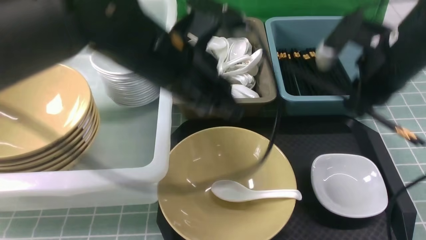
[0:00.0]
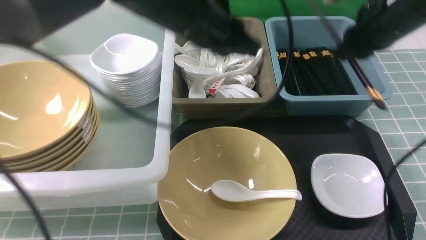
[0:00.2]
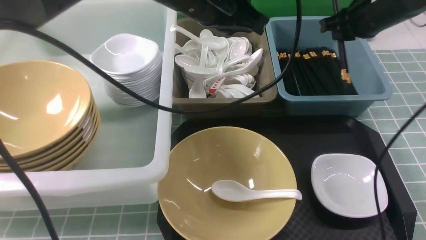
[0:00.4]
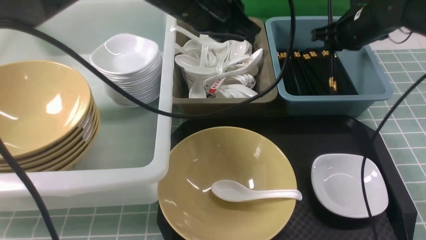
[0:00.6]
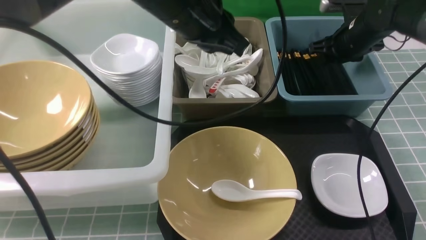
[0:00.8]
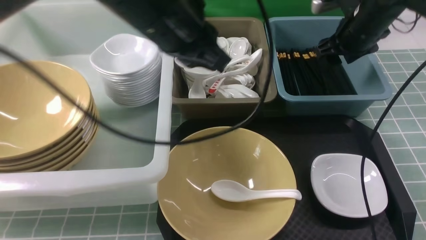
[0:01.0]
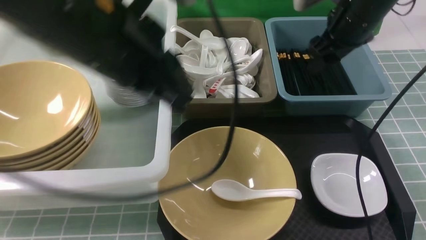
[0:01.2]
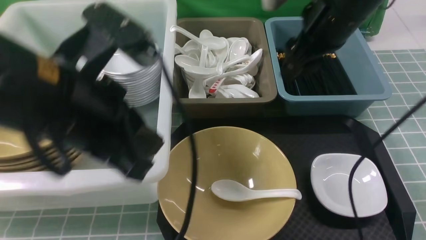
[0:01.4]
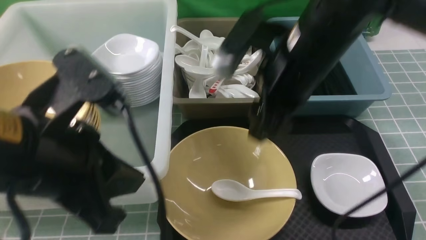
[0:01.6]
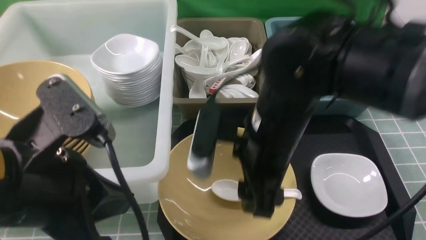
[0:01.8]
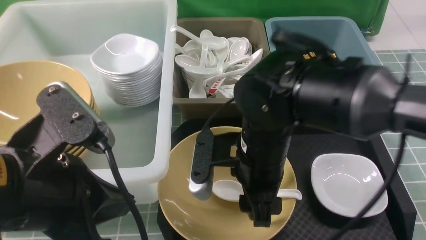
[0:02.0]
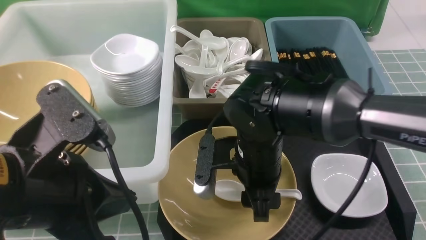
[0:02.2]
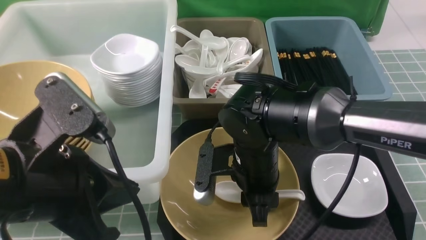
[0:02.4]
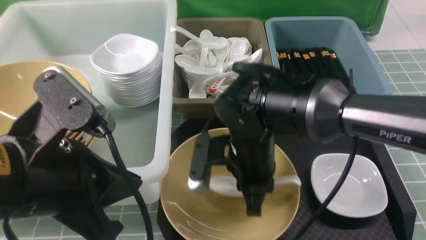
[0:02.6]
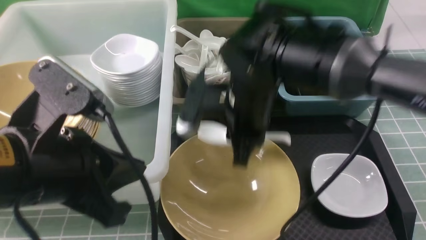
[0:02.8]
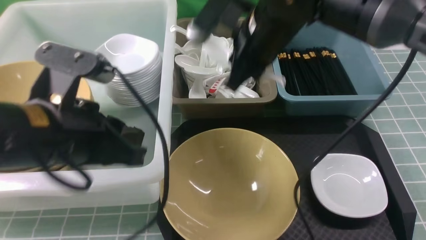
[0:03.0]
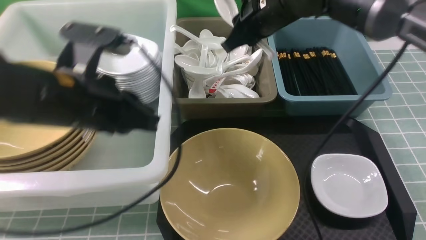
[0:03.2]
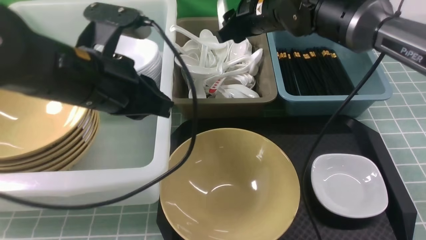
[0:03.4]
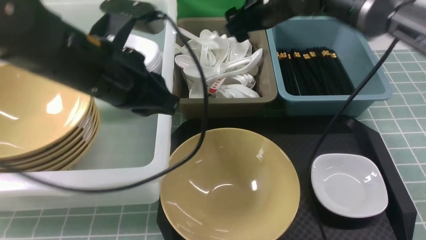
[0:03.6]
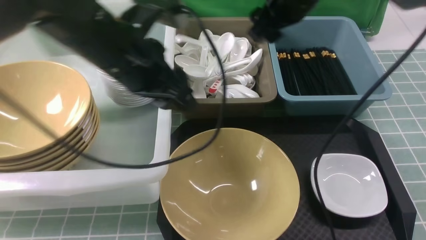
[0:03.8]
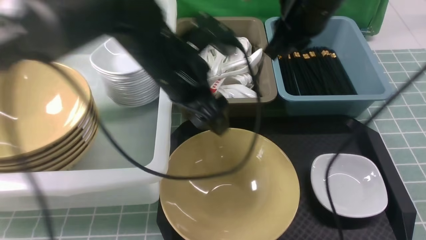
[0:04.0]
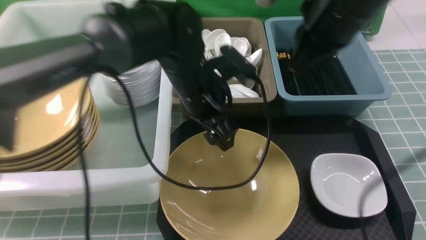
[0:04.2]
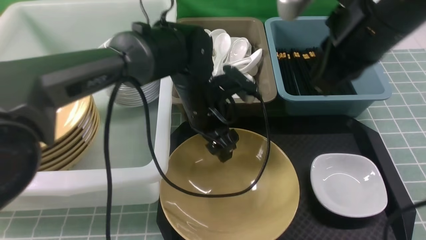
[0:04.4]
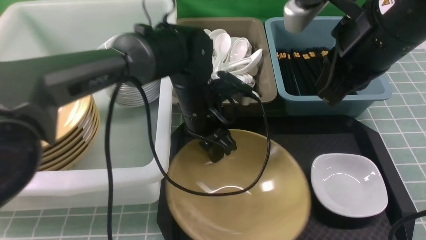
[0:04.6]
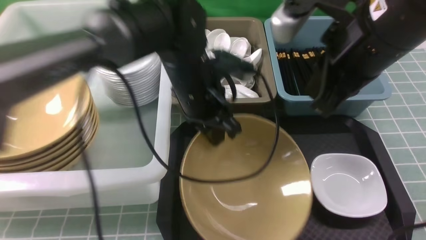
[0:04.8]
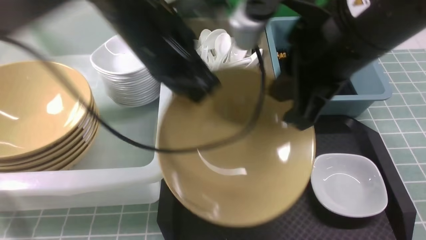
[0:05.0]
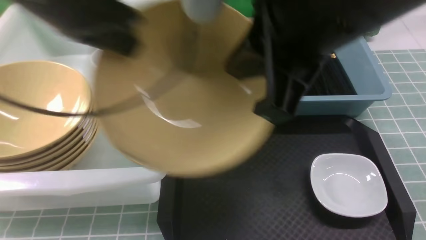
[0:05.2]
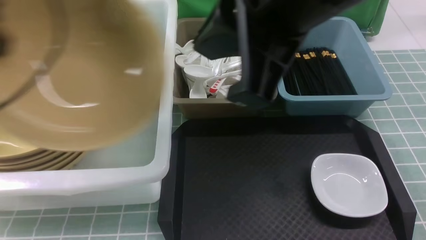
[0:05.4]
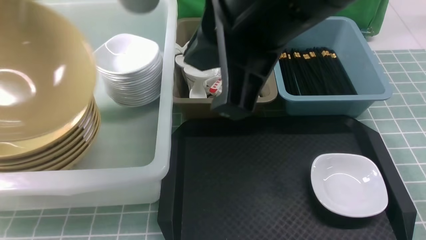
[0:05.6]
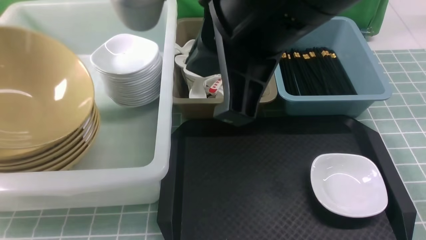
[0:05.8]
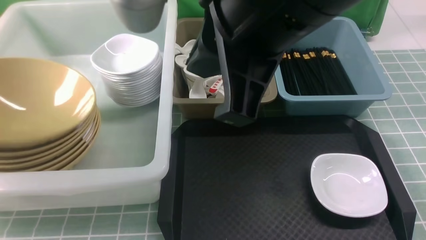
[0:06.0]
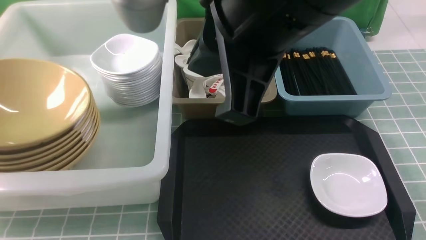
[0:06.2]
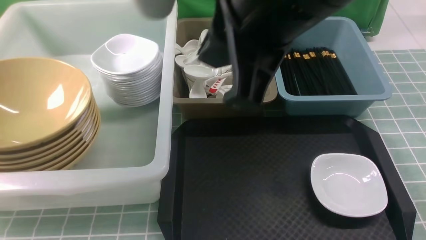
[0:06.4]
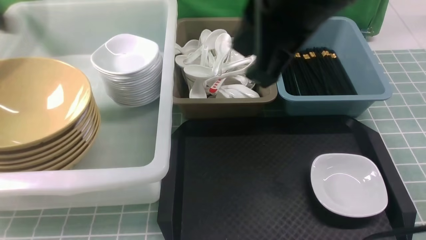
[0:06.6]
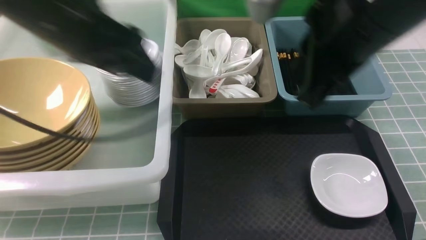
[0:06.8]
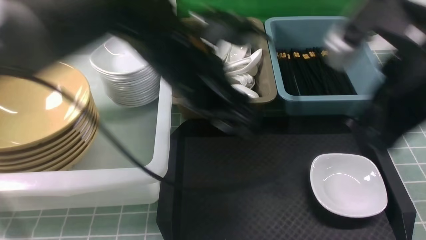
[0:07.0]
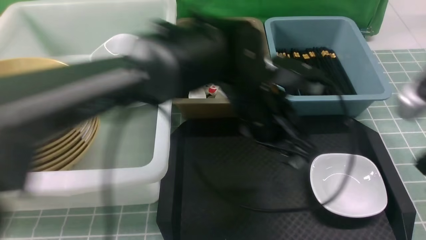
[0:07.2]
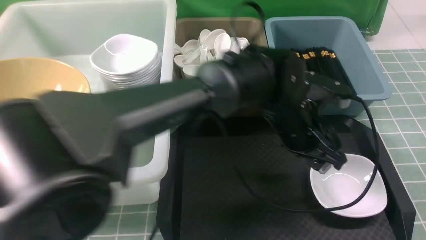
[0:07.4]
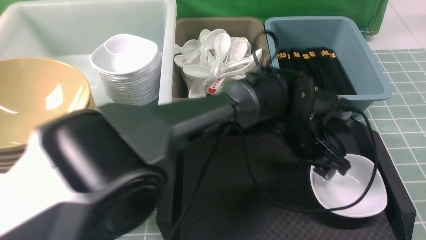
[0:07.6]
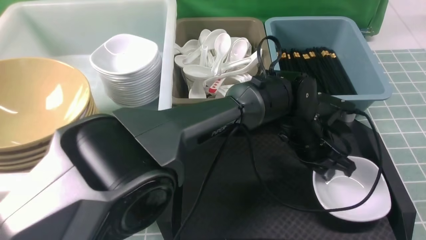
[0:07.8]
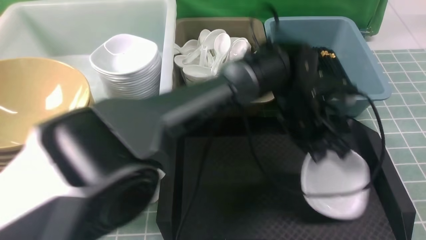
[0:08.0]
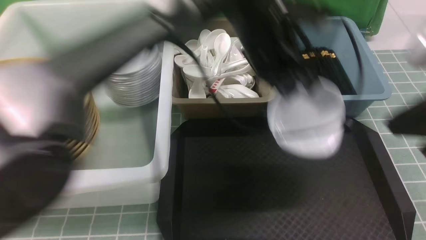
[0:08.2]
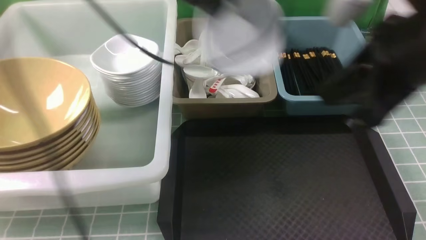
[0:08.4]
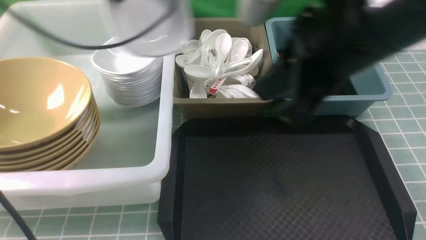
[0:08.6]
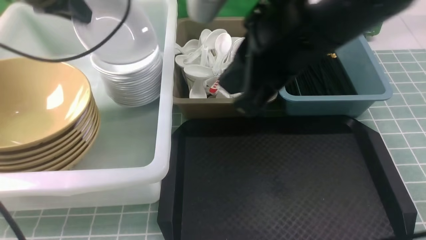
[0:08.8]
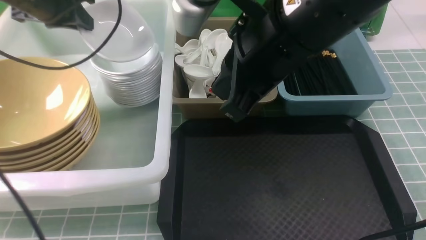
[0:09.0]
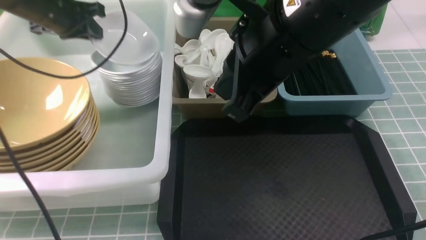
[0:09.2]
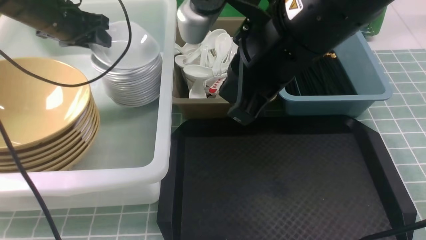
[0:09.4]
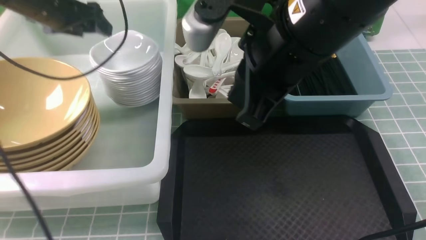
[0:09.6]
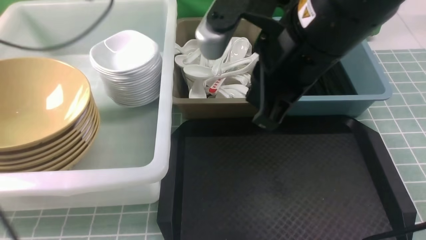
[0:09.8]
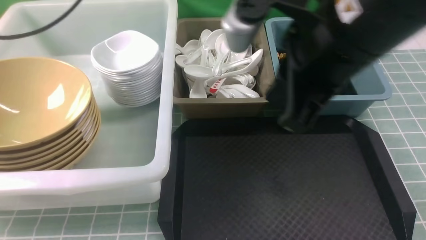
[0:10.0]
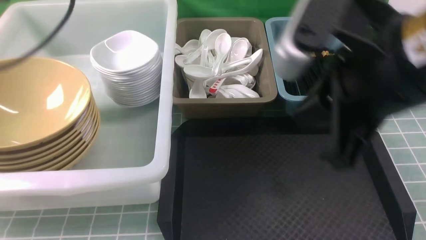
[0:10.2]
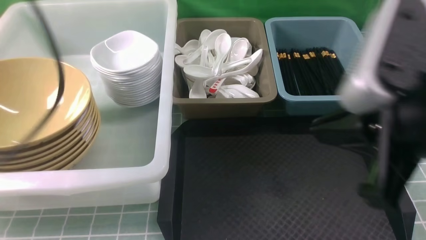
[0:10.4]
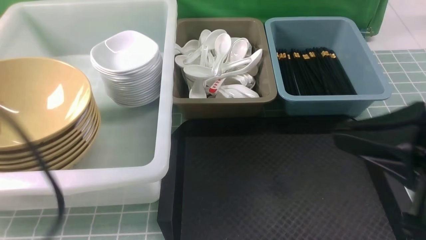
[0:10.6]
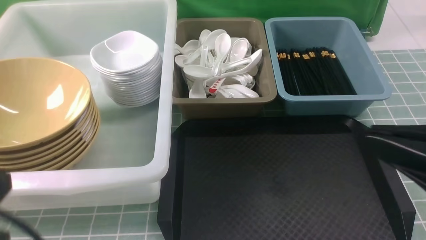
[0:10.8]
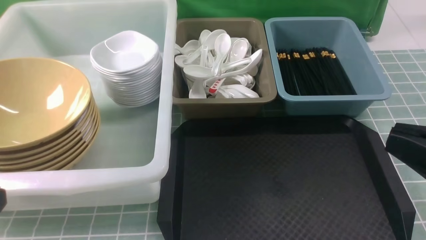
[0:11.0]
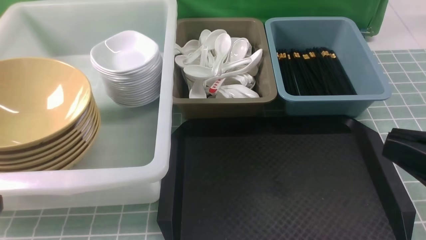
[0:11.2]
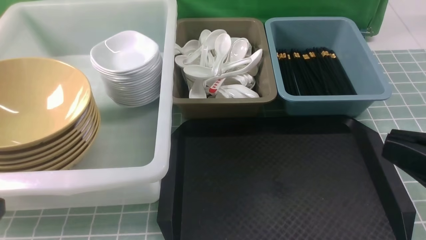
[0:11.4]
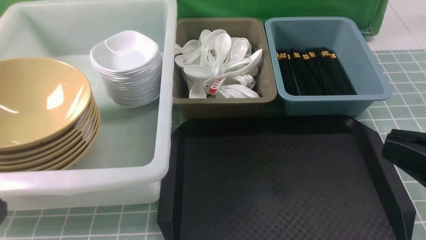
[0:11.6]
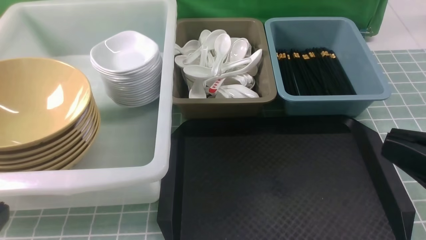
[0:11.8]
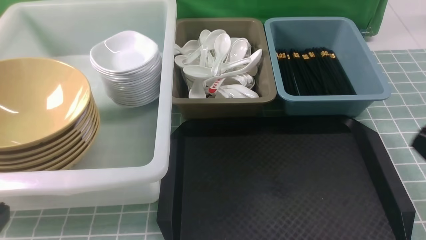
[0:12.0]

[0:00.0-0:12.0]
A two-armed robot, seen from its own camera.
Task of the whole recording: on blue table put chopsticks spoon bowls plates into blue grey white boxes.
Step, 0:00.0 to 0:01.0: use the right arm to put the chopsticks into the small storage box on the right.
Step, 0:01.2 to 0:02.8: use the right arm to grab the soup spoon in the middle.
Step, 0:03.0 to 0:03.6: use the right arm to put the soup spoon into the small storage box in the middle.
Step, 0:03.8 to 0:04.8: use the left arm to grab the yellow noodle bowl on the left.
Step, 0:05.0 to 0:06.2: use the left arm to put the noodle bowl into the large storage box on the left.
Step, 0:06.4 to 0:08.0: use the left arm to grab the plate.
Step, 0:08.2 to 0:09.8: use the left arm to put the plate into the large storage box on the left.
0:00.0 to 0:01.6: The left gripper goes some 15 cm backward and to the left. Meanwhile the right gripper heads to the left, covering roughly 15 cm, reaches some 15 cm forward, then returns, and opens.
0:01.6 to 0:03.0: The right gripper heads forward, covering about 10 cm, and closes its fingers. The left gripper changes place by about 5 cm.
0:03.0 to 0:04.4: The left gripper travels forward, to the right and downward by roughly 25 cm, and opens; the right gripper goes some 15 cm backward, to the right and upward, and opens, then closes again.
0:04.4 to 0:06.0: The right gripper heads to the left, backward and upward, covering about 15 cm. Meanwhile the left gripper travels to the left by about 35 cm, and closes, then reopens.
0:06.0 to 0:07.6: The right gripper goes roughly 25 cm to the right and downward, while the left gripper is displaced to the right by approximately 50 cm, and opens, then closes once more.
0:07.6 to 0:09.0: The right gripper moves to the left and forward, about 25 cm. Meanwhile the left gripper is displaced to the left by about 40 cm, and closes up.
0:09.0 to 0:10.4: The left gripper heads backward, covering some 25 cm, and opens and closes again; the right gripper is displaced to the right and backward by approximately 15 cm.
0:10.4 to 0:12.0: The right gripper is displaced to the right, downward and backward by roughly 15 cm; the left gripper is displaced backward and downward by some 20 cm.

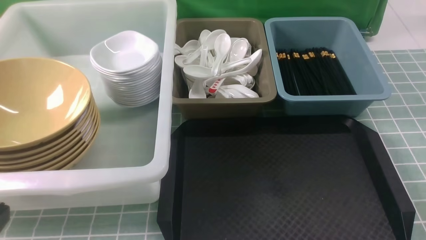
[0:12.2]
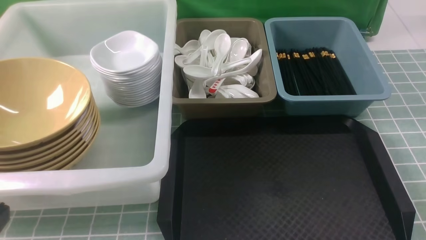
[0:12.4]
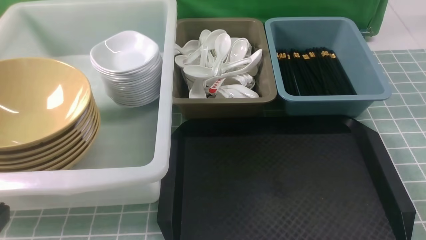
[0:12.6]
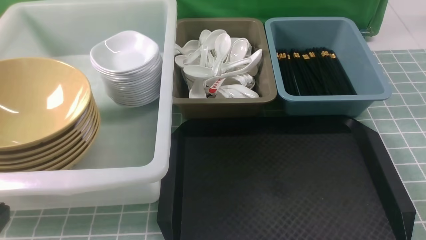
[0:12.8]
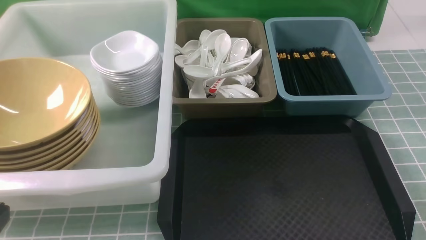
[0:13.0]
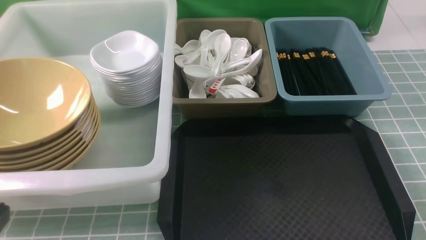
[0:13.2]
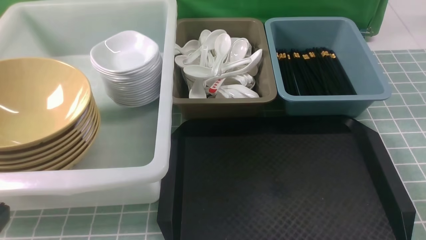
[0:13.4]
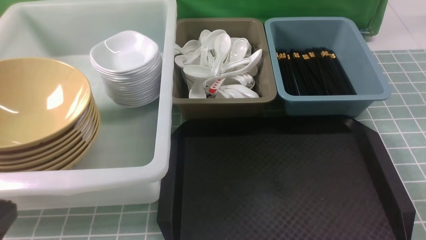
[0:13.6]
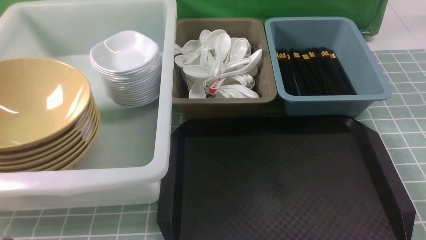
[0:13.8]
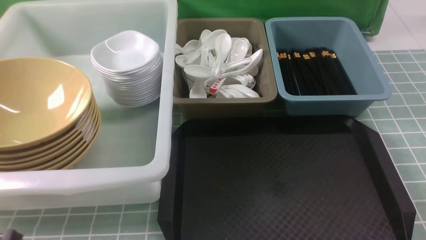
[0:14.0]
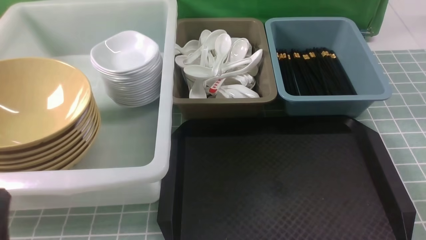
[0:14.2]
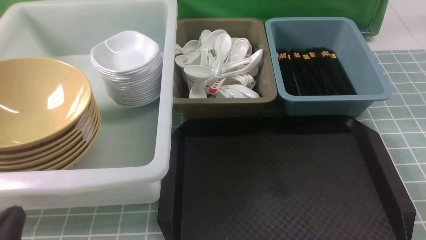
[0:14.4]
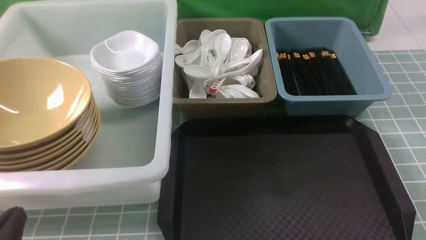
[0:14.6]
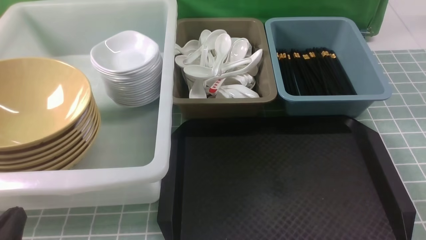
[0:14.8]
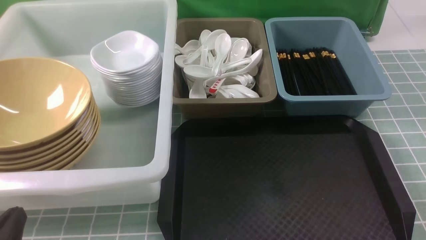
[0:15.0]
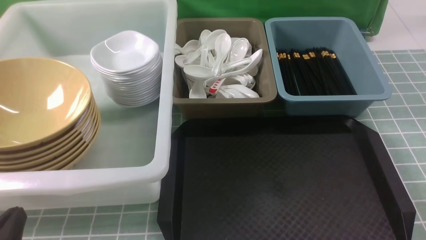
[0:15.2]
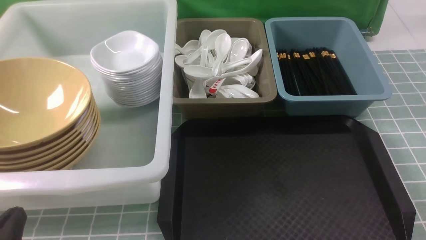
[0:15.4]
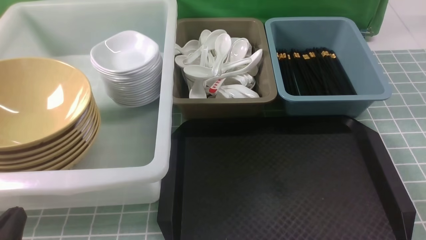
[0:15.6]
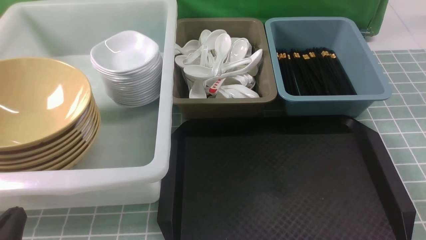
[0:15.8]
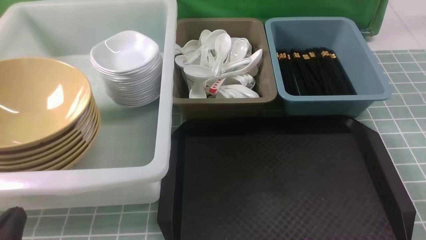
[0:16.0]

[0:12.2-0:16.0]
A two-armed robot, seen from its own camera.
Task of the whole recording: on blue table put chopsticks spoon bowls plates into blue grey white boxes.
0:13.4 to 0:14.8: The left gripper shifts some 10 cm downward.
0:14.8 to 0:16.0: Neither gripper changes place.
